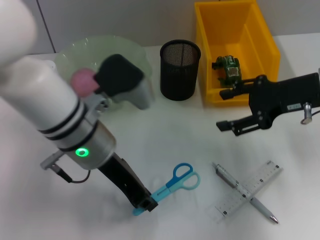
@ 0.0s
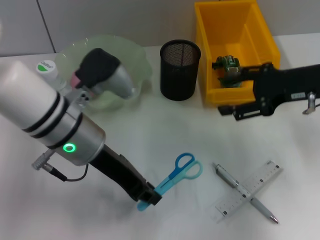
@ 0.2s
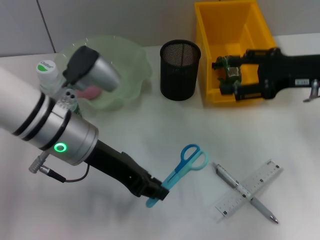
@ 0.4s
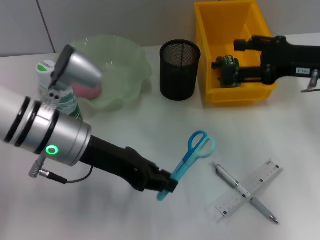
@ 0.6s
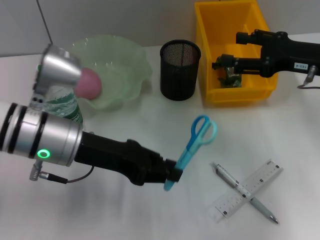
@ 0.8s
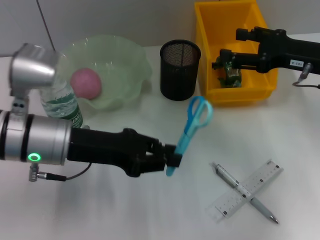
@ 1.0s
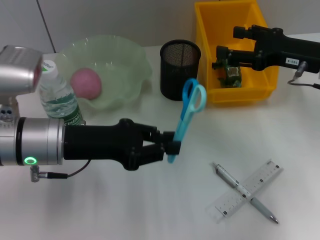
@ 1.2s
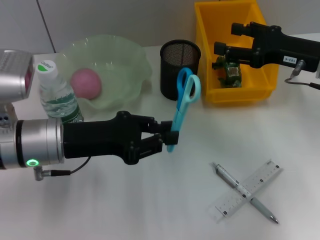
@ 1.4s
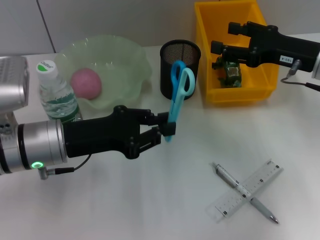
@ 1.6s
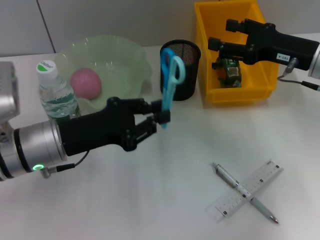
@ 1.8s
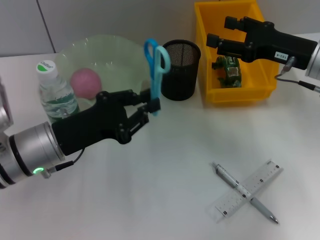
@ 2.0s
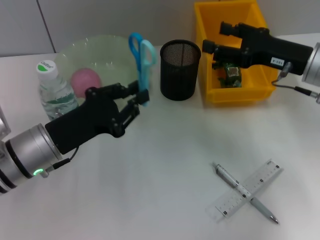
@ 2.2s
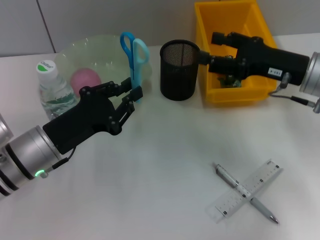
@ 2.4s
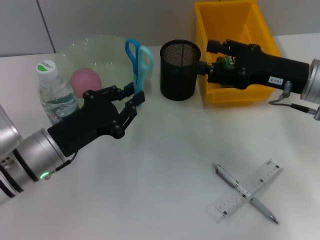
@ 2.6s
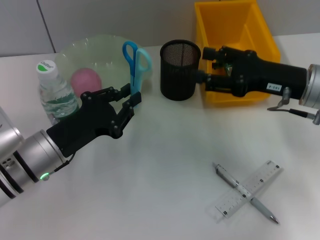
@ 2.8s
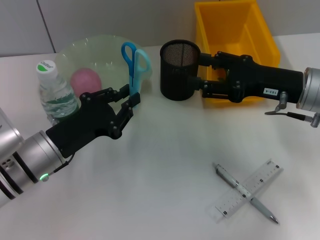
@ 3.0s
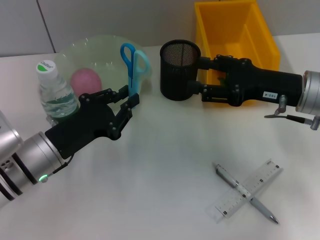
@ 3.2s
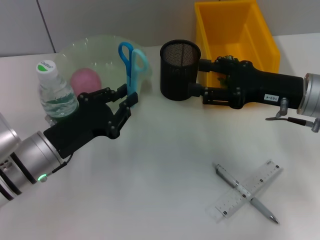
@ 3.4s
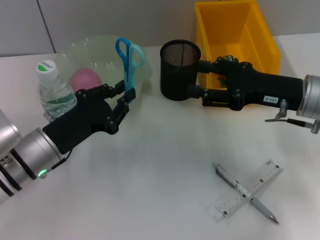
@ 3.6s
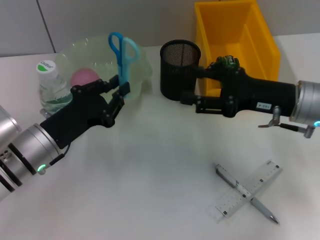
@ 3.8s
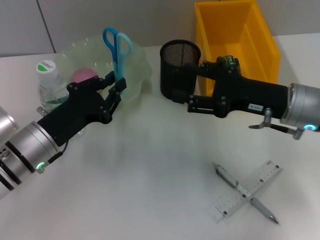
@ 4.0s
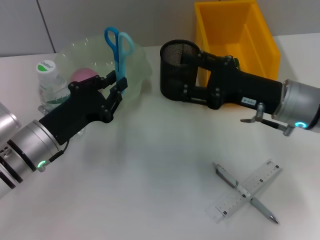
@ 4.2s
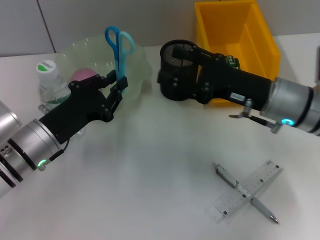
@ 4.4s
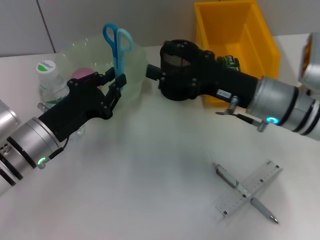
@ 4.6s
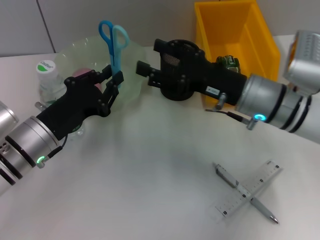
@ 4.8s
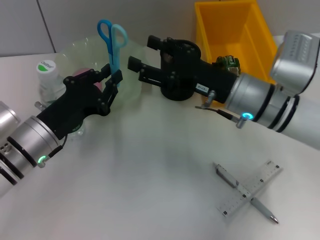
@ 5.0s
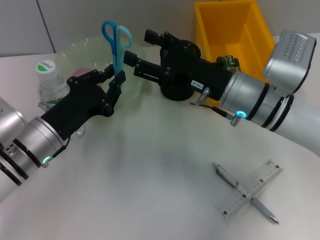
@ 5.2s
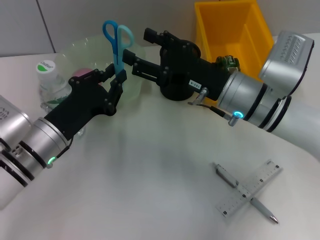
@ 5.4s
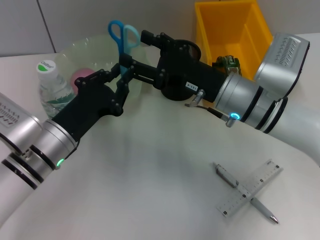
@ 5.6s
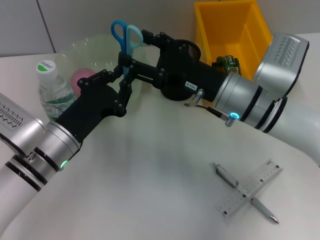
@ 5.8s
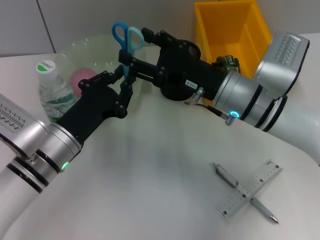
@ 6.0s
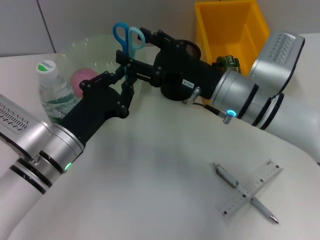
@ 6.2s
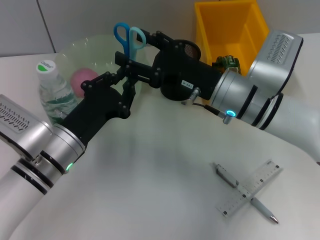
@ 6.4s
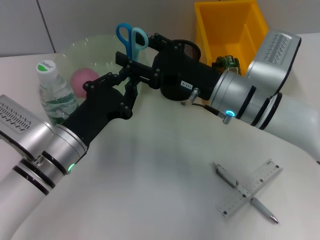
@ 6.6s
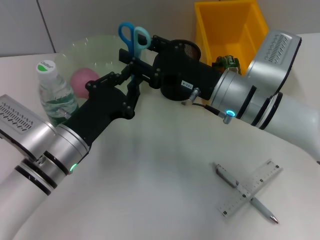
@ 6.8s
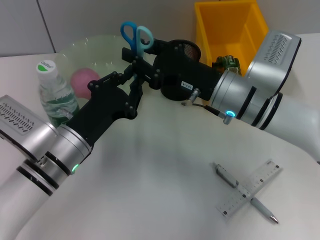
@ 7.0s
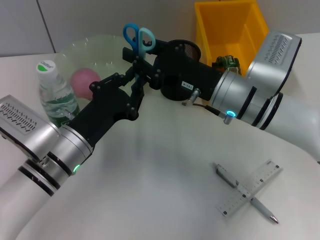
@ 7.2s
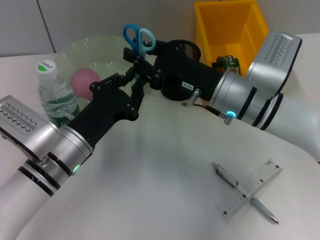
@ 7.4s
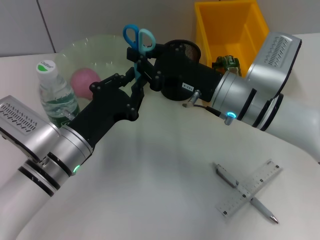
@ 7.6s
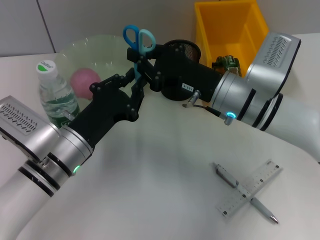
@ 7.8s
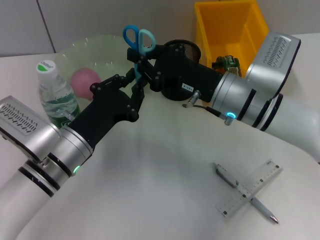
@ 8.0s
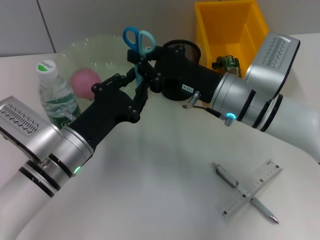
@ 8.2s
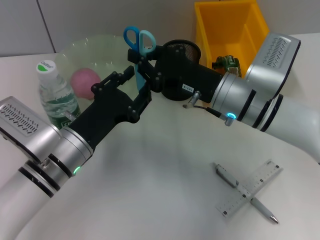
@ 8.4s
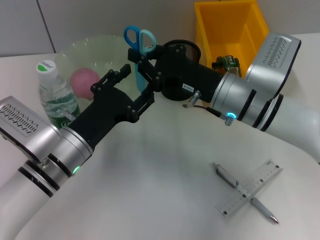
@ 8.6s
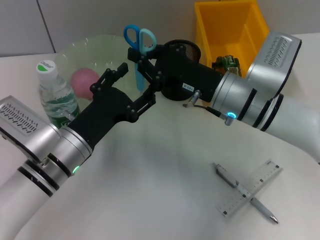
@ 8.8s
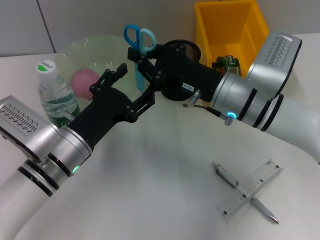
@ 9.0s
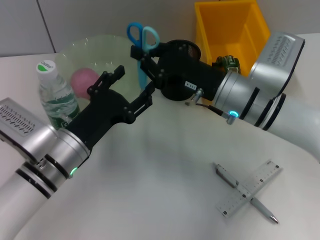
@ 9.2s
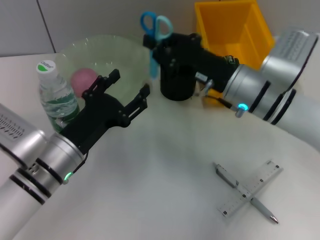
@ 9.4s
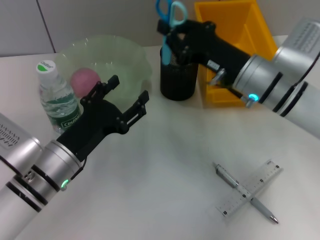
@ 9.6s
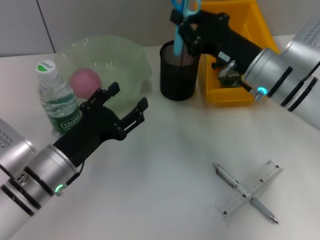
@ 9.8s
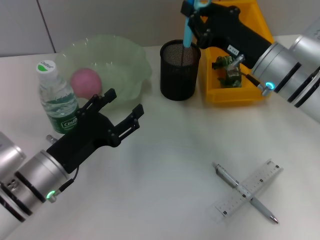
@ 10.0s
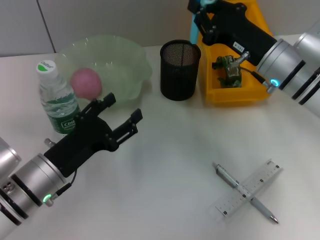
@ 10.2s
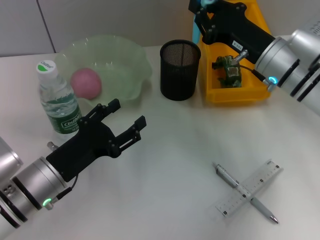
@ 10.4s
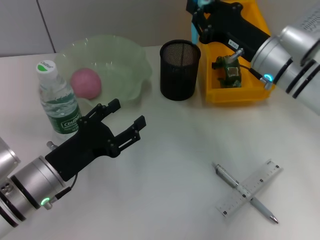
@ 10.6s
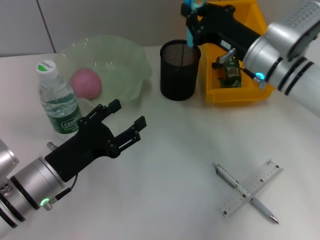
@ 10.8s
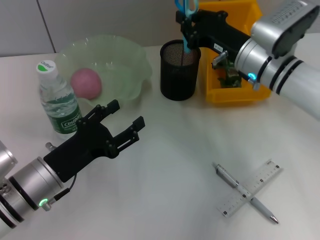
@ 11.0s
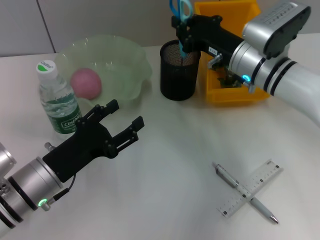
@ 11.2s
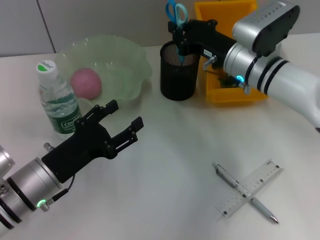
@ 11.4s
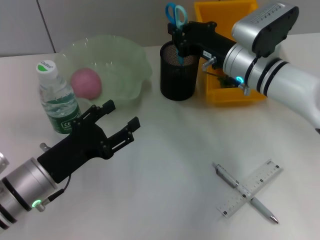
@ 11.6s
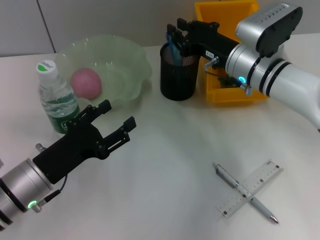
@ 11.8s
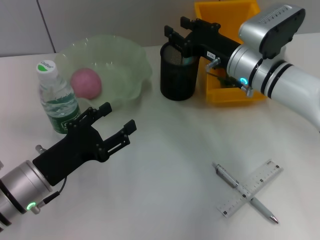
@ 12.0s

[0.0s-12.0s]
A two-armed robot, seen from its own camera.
Step, 0.0s to 8.8s: Pass the blue scissors from the left hand to the right hand.
0.0s to 1.6s: The left gripper moves to the left, roughly 10 cm.
1.6s to 3.0s: The left gripper ends up about 5 cm from where it was.
3.0s to 4.4s: The right gripper changes place by approximately 5 cm.
4.4s to 6.0s: The right gripper heads to the left, covering approximately 5 cm.
6.0s to 7.6s: The right gripper closes.
7.6s to 9.0s: The left gripper opens.
9.0s to 10.4s: The right gripper is displaced to the right by approximately 5 cm; the left gripper moves some 5 cm.
10.4s to 12.0s: The grippers stay close to where they were, moving slightly.

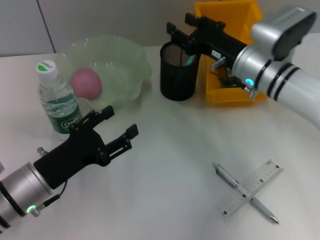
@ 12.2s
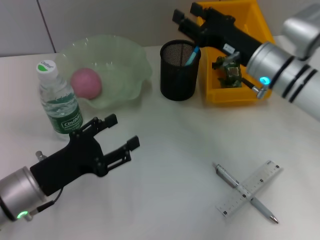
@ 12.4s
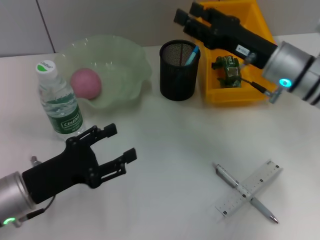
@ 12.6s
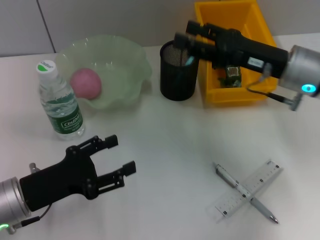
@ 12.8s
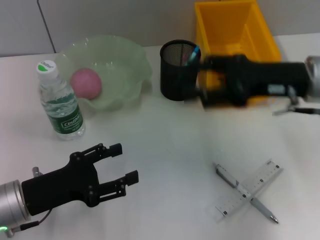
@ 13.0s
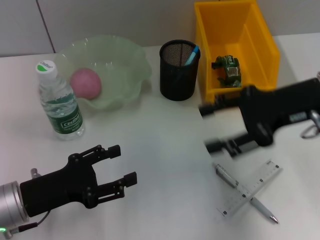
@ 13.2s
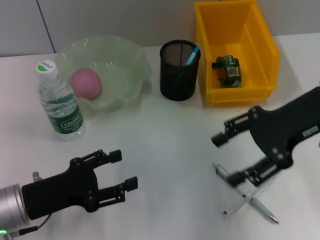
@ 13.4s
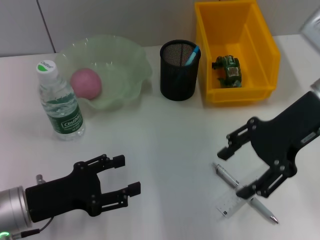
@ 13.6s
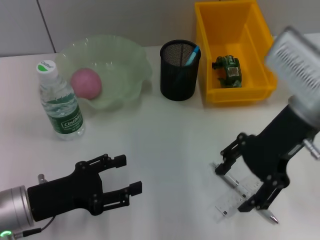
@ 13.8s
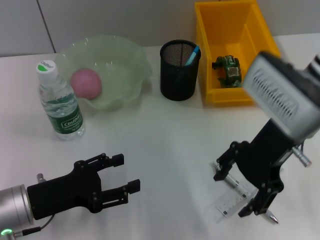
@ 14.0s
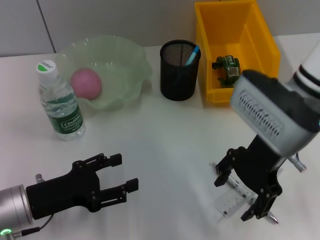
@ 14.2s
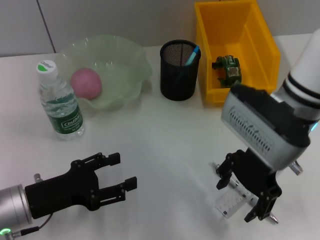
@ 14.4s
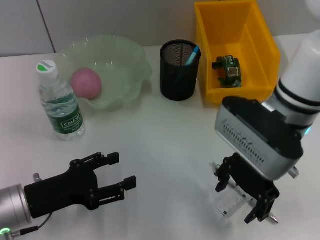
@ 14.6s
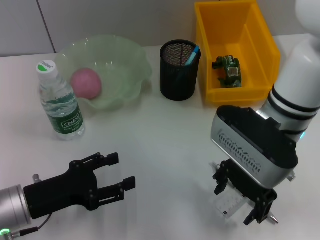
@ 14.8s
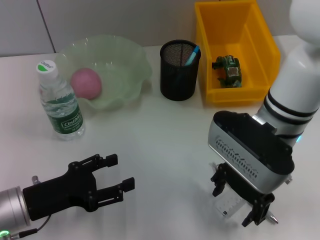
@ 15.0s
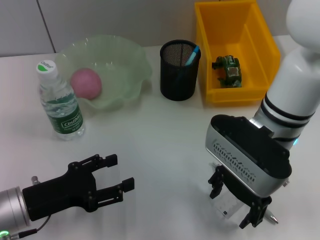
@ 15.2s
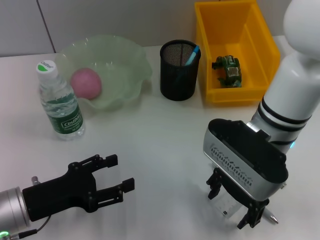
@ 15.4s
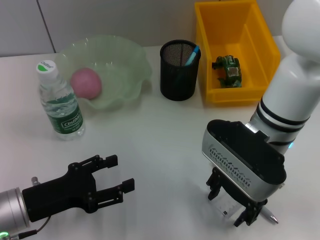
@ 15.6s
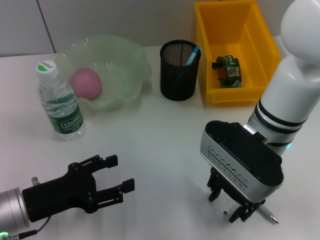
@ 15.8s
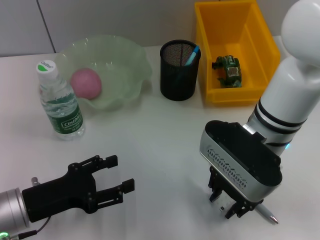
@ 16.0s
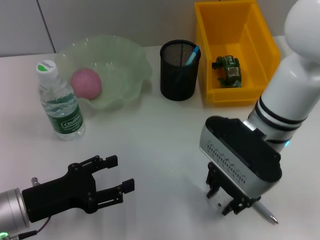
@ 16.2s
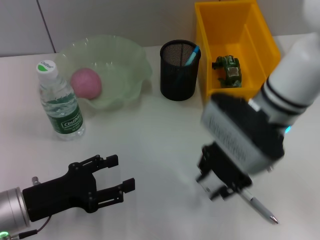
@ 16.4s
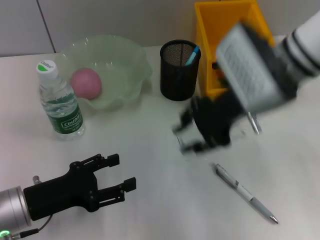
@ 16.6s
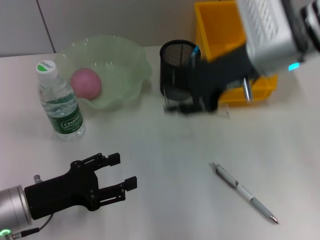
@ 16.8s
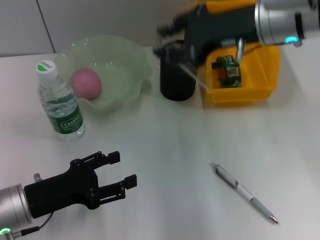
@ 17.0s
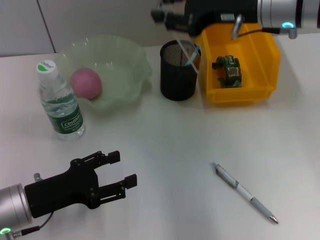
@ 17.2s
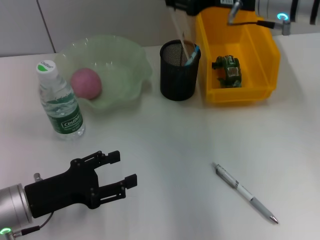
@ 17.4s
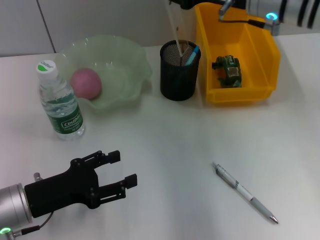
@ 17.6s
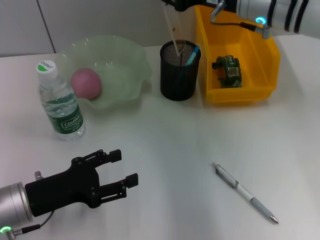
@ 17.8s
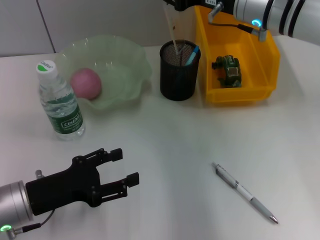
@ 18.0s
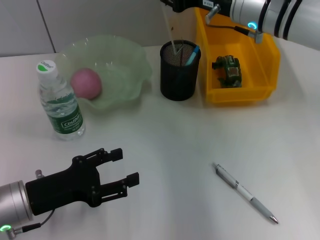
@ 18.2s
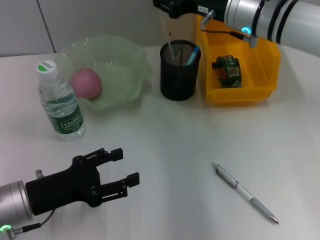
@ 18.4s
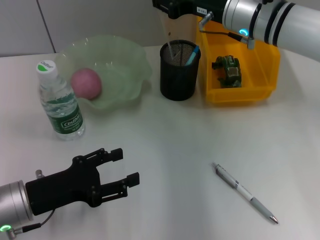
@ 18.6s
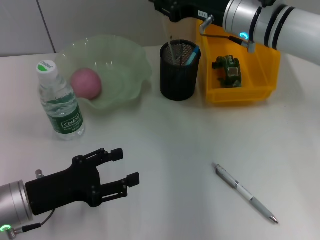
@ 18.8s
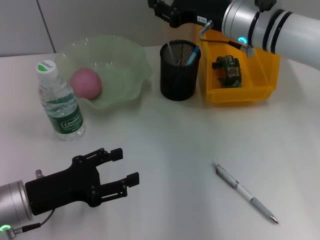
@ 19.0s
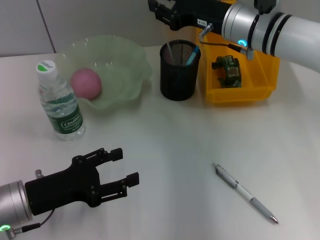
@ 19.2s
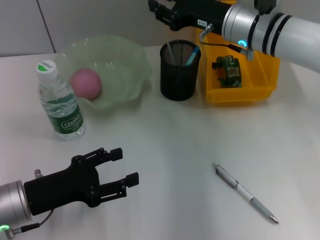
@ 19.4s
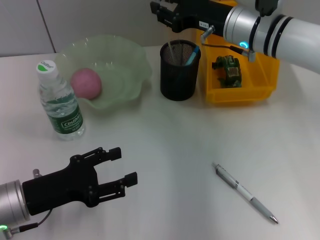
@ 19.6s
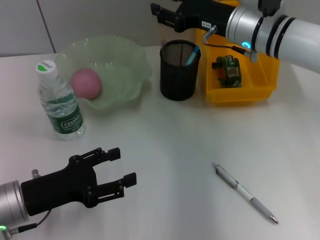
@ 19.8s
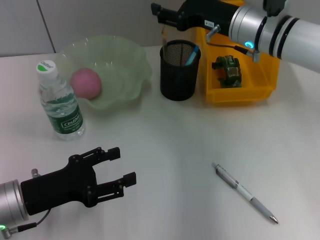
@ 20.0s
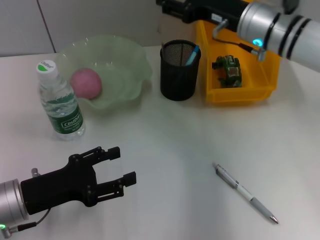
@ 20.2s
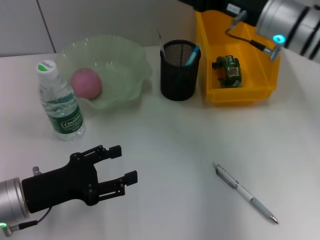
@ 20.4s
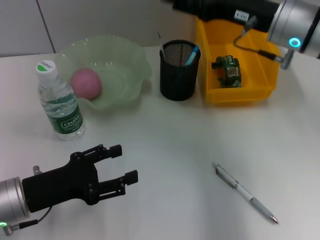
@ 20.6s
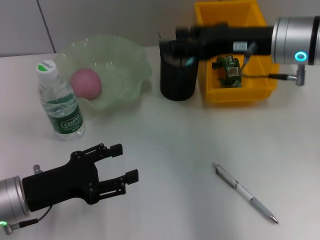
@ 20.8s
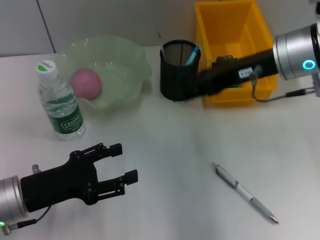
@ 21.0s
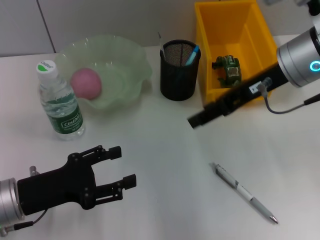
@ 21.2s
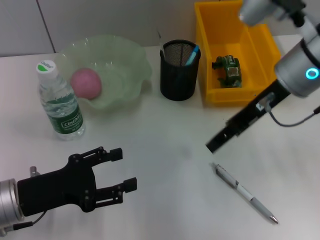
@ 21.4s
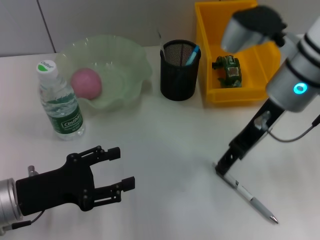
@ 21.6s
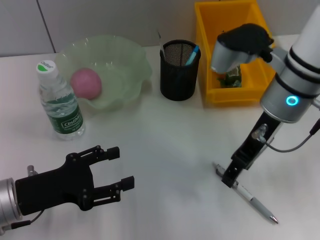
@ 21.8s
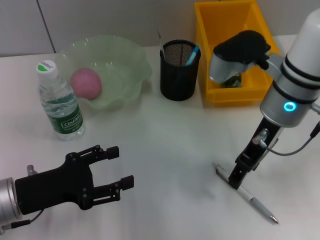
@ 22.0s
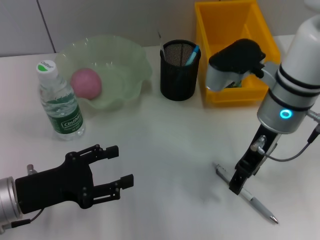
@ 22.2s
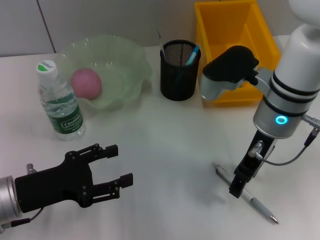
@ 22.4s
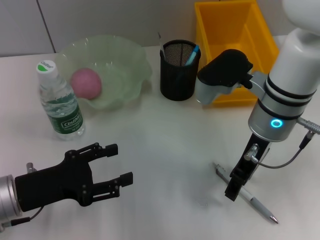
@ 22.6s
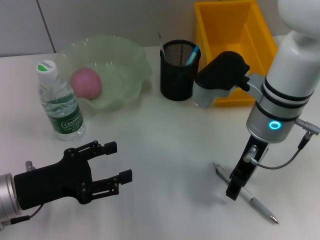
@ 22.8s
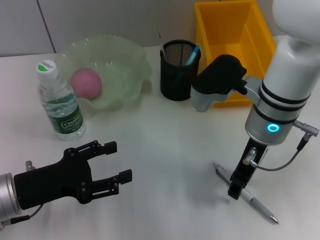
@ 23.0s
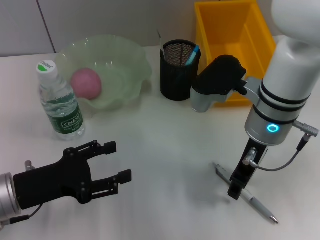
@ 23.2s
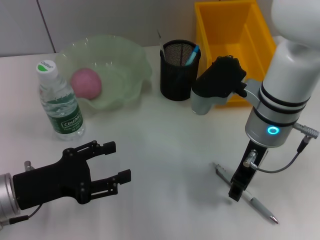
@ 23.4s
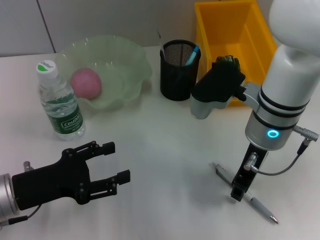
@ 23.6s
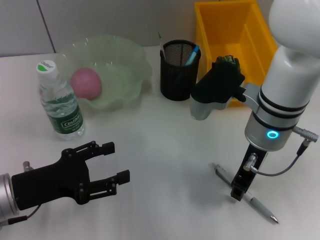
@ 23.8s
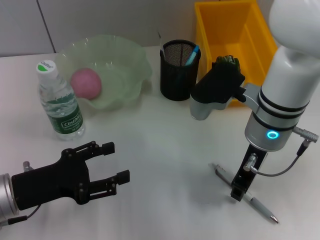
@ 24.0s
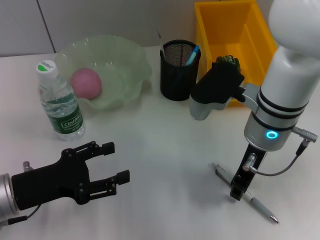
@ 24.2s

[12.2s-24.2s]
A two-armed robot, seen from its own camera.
Step, 12.6s to 15.8s: Grab the ruler with the right hand.
Step, 16.0s to 20.2s: Place the ruler into the pen holder with the right hand.
12.2s to 13.8s: The right gripper heads upward and backward, covering about 10 cm, and opens its fingers.
13.8s to 15.2s: The right gripper travels to the left by some 5 cm.
15.2s to 16.6s: The right gripper is displaced upward by about 5 cm, and closes up.
16.6s to 18.2s: The right gripper heads forward, covering roughly 10 cm.
18.2s to 19.8s: The grippers stay close to where they were, moving slightly.
19.8s to 21.2s: The right gripper heads backward and upward, covering some 10 cm.
21.2s to 22.6s: The right gripper moves downward, approximately 5 cm.
22.6s to 24.2s: The right gripper closes up.
